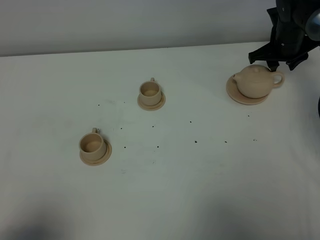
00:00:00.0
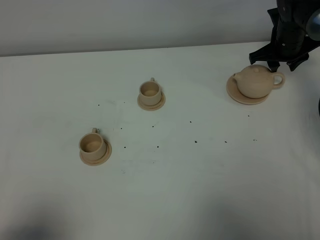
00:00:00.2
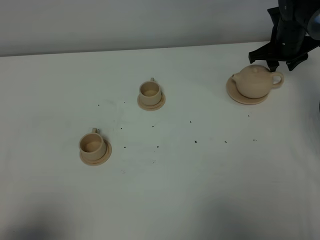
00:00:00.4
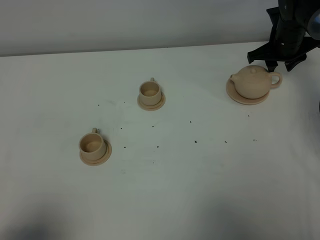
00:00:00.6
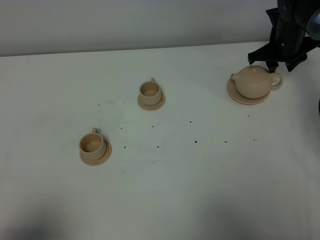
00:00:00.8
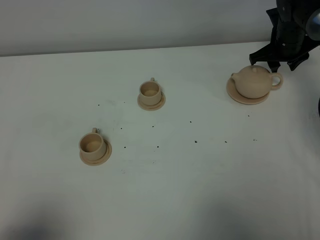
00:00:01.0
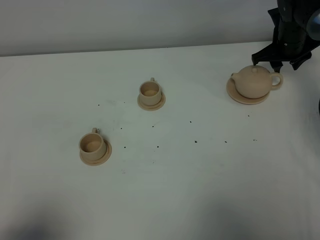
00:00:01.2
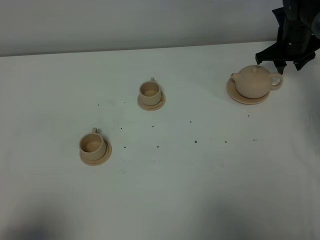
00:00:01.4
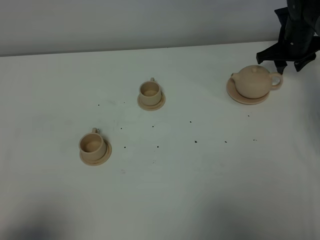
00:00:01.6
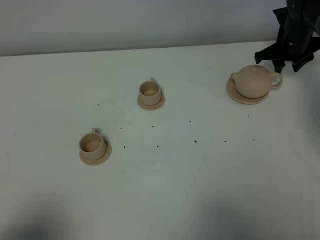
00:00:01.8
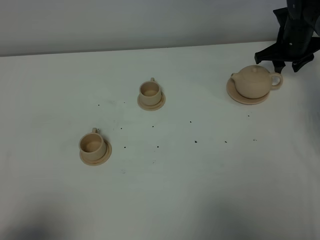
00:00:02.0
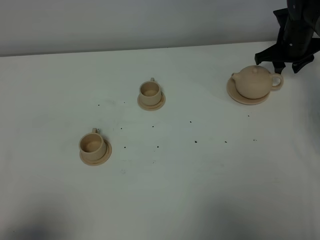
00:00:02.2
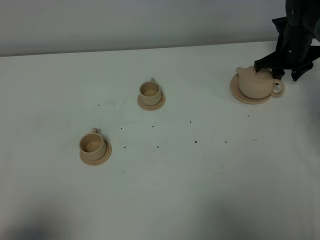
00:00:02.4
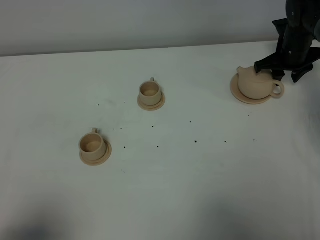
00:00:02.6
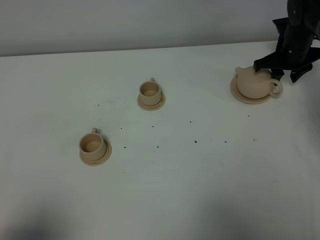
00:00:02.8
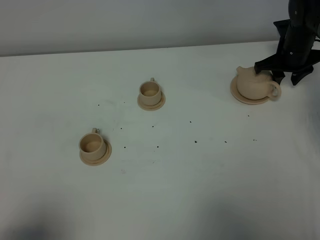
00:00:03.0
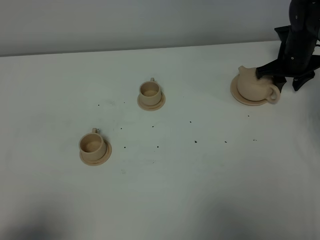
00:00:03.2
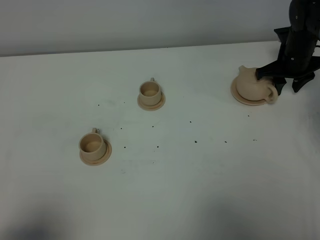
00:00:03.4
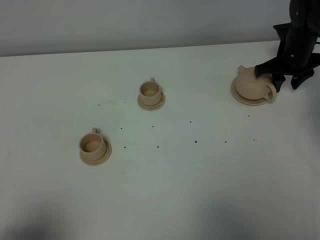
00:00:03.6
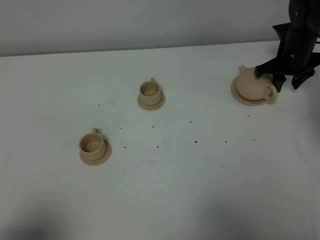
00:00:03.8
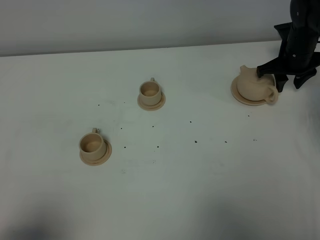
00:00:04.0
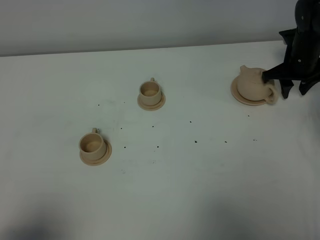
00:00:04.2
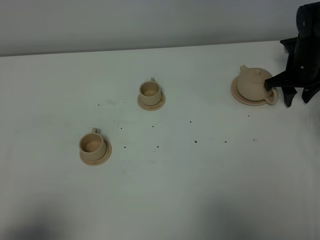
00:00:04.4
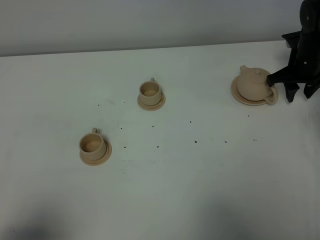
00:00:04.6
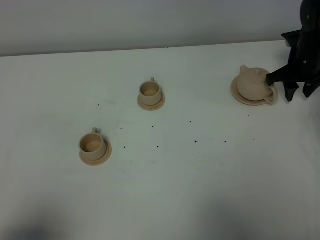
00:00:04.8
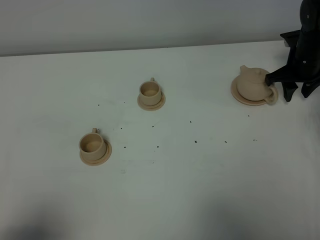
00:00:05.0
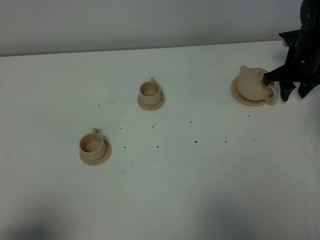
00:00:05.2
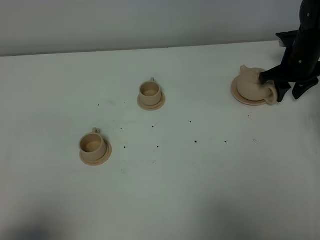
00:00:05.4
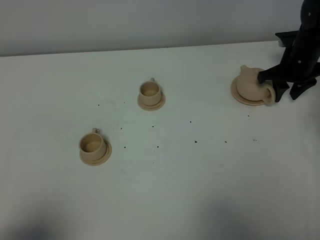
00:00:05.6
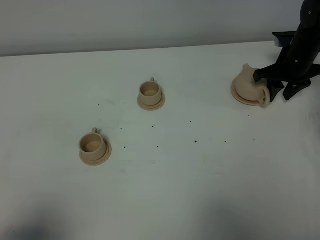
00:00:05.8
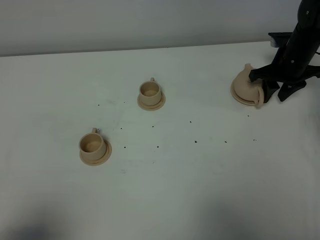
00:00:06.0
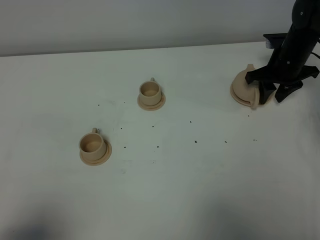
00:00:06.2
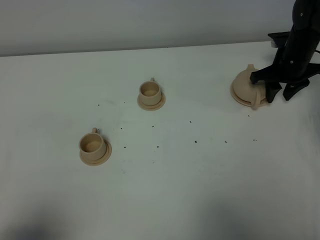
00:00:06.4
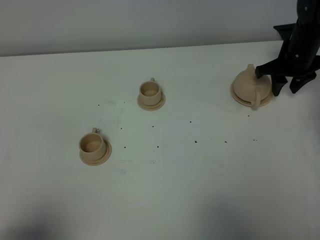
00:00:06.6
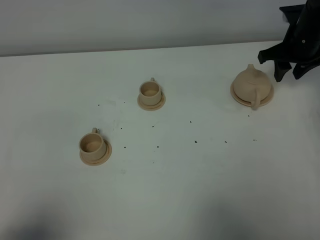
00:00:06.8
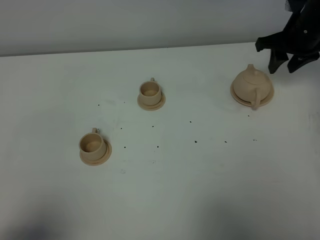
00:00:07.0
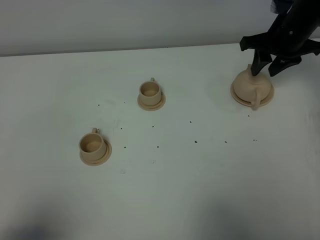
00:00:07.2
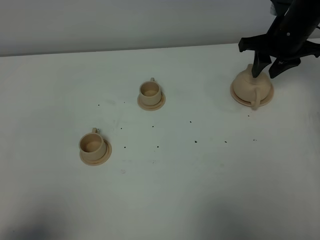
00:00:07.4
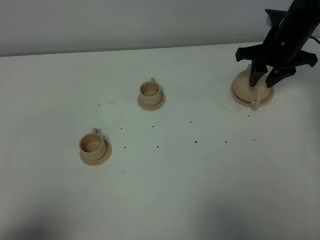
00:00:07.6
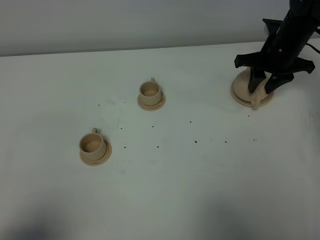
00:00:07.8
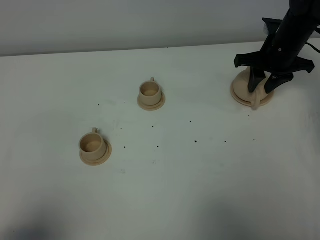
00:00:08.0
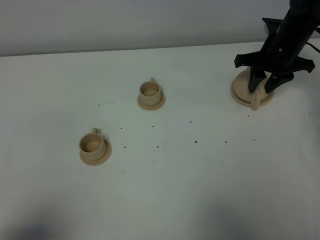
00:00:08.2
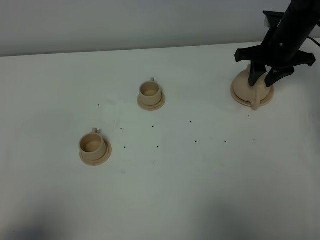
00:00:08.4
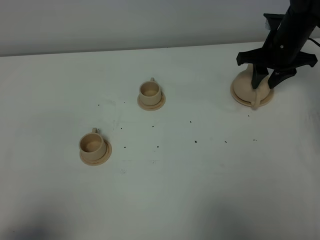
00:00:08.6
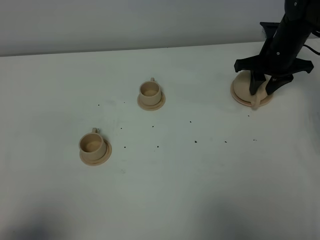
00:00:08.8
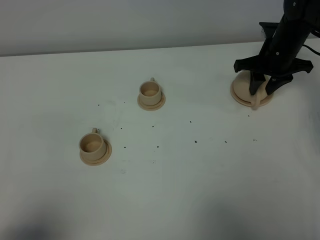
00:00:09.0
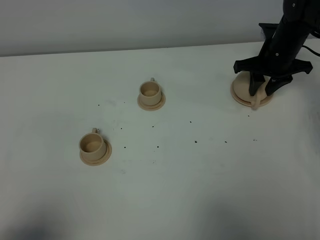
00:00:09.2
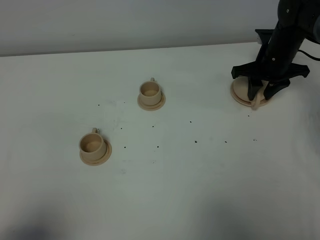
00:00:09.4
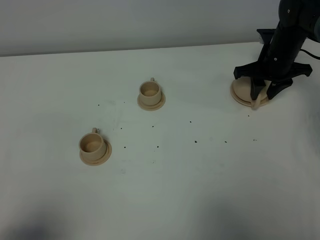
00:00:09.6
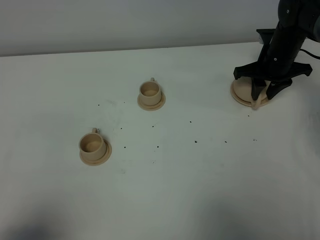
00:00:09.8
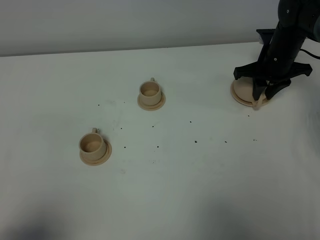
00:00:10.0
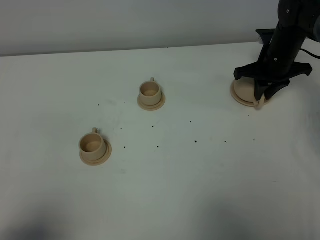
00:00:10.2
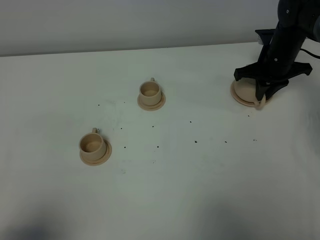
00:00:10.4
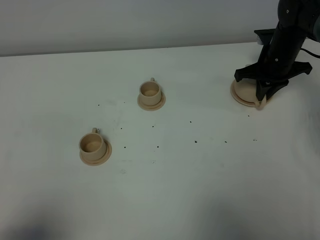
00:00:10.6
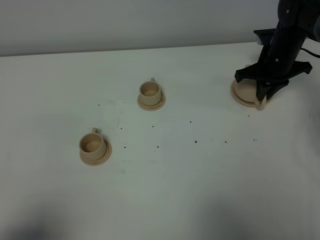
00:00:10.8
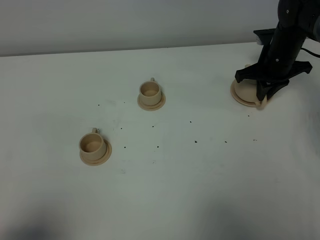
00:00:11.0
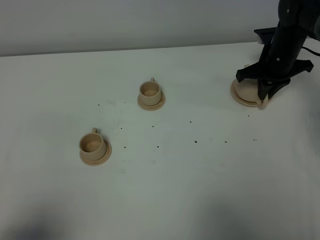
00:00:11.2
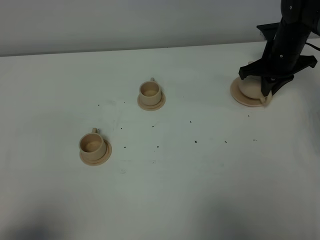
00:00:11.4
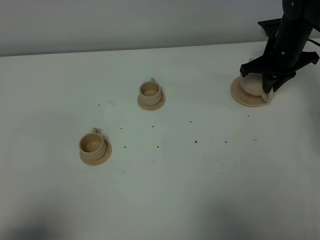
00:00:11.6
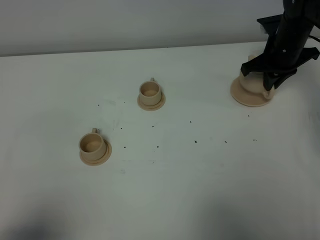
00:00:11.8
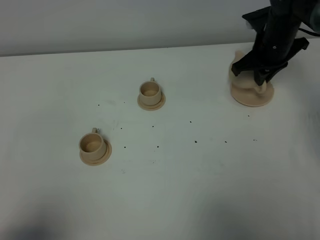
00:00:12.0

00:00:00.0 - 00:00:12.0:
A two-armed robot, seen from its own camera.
Task of the whole recording: grasp the brown teapot and pour the tea into the two brown teacups one by one, put the brown teapot back in its original place.
Step, 00:00:00.0 - 00:00:11.4: Pick up the teapot with the right gripper.
00:00:00.0 - 00:00:04.4: The grippers stay close to where they were, moving slightly.
00:00:04.4 - 00:00:06.0: The grippers make only small movements.
00:00:06.0 - 00:00:07.6: The right gripper shifts roughly 5 cm upward.
00:00:07.6 - 00:00:09.0: The grippers move only a little.
00:00:09.0 - 00:00:10.4: The right gripper closes its fingers.
00:00:10.4 - 00:00:12.0: The right gripper travels upward by about 5 cm.

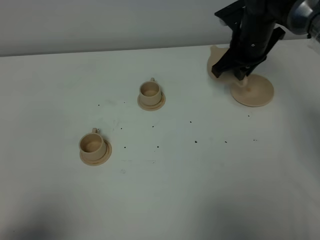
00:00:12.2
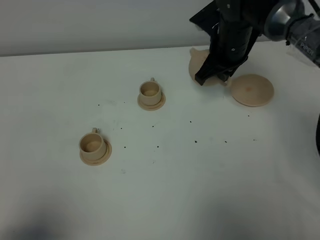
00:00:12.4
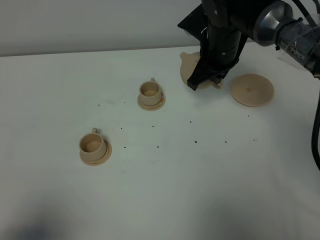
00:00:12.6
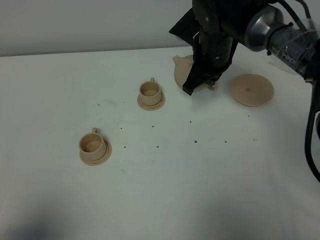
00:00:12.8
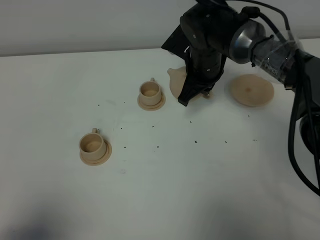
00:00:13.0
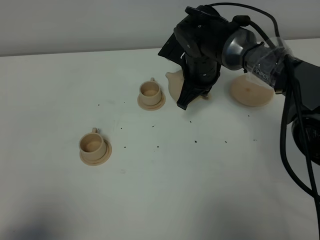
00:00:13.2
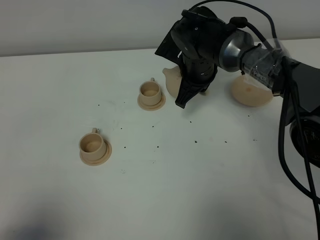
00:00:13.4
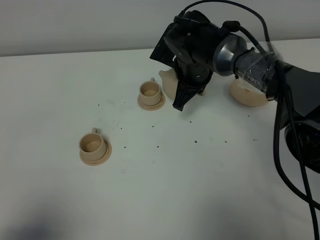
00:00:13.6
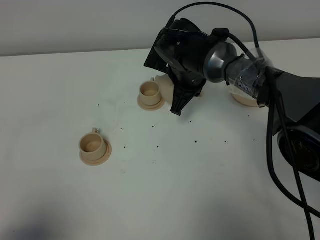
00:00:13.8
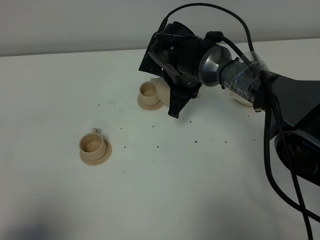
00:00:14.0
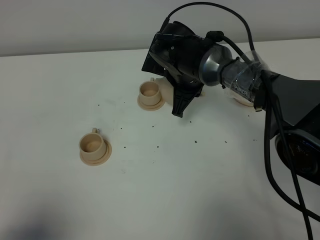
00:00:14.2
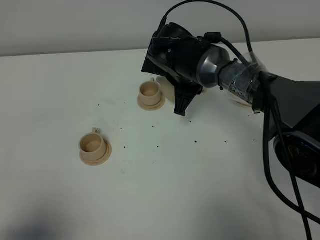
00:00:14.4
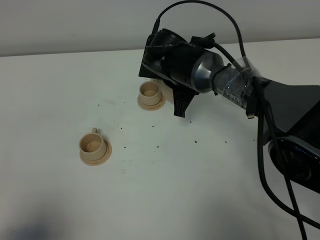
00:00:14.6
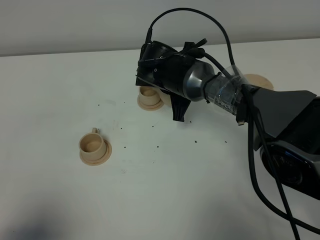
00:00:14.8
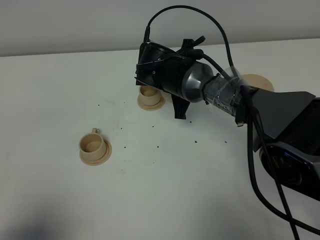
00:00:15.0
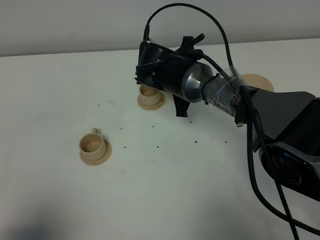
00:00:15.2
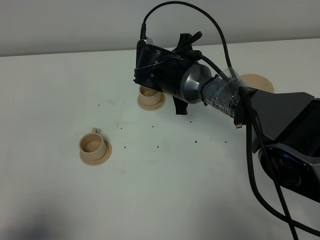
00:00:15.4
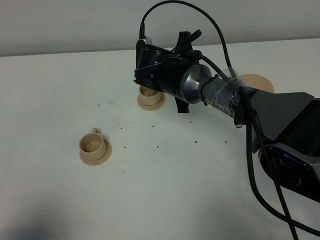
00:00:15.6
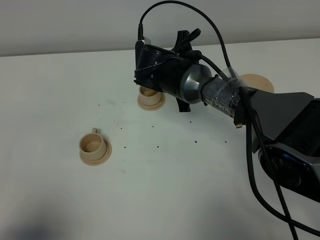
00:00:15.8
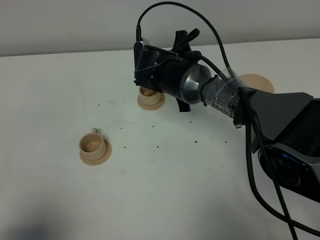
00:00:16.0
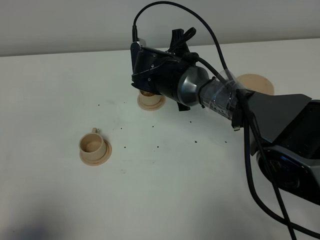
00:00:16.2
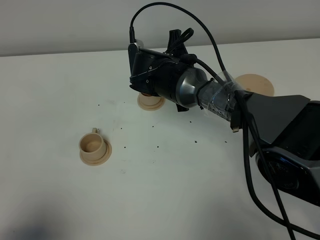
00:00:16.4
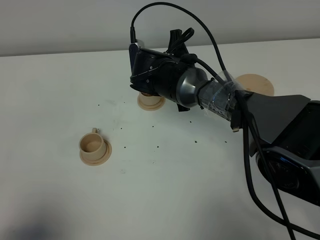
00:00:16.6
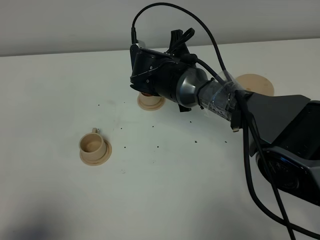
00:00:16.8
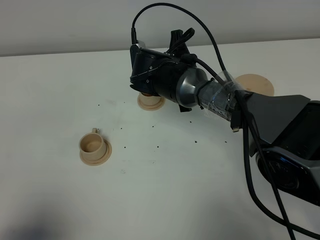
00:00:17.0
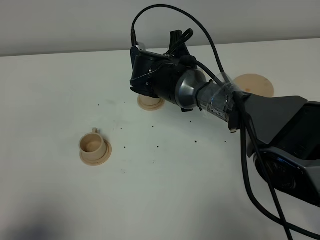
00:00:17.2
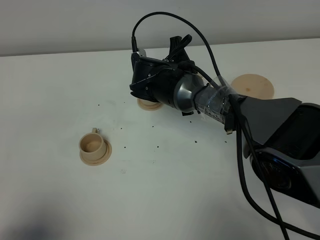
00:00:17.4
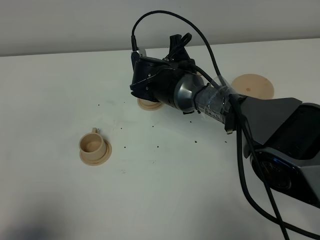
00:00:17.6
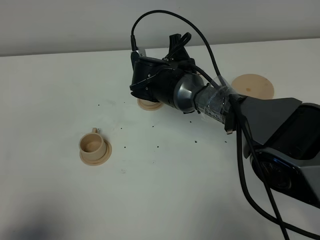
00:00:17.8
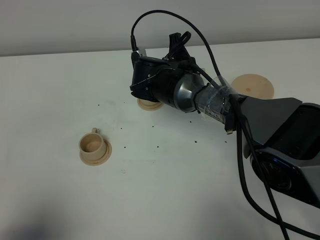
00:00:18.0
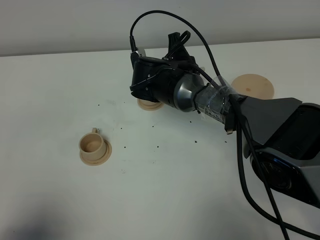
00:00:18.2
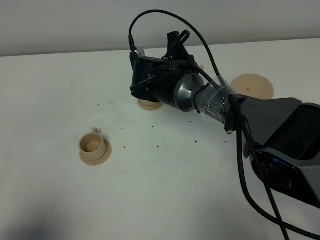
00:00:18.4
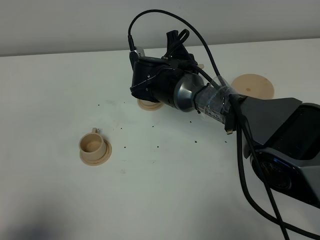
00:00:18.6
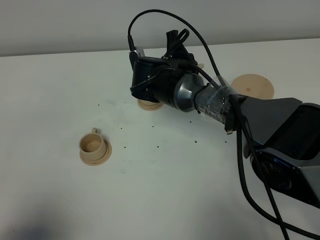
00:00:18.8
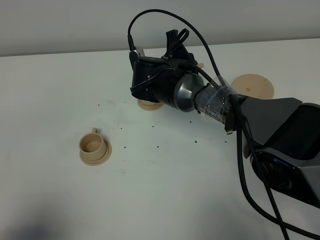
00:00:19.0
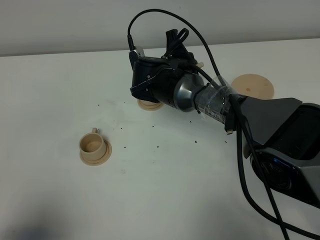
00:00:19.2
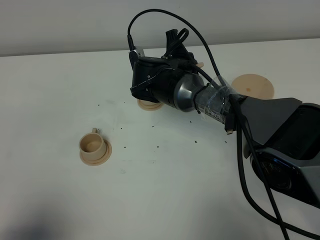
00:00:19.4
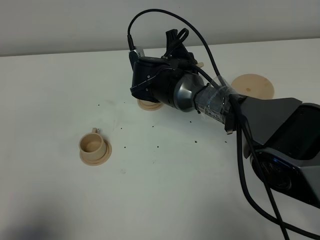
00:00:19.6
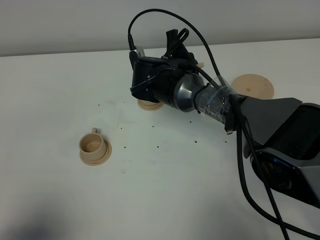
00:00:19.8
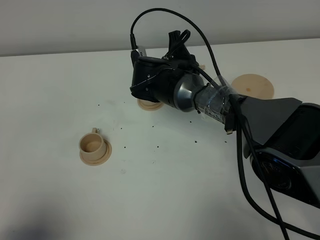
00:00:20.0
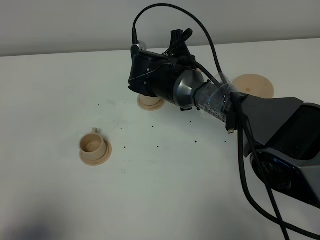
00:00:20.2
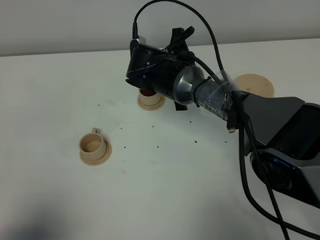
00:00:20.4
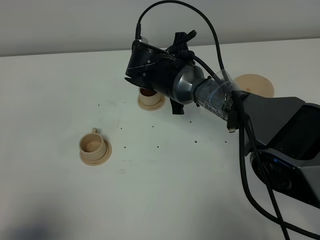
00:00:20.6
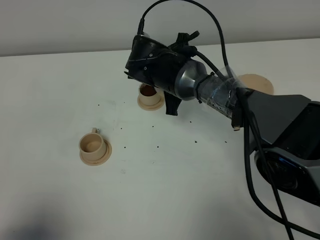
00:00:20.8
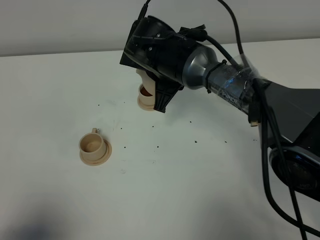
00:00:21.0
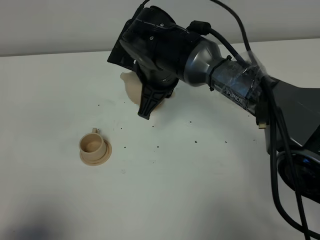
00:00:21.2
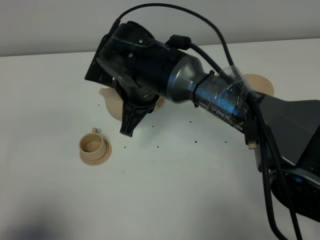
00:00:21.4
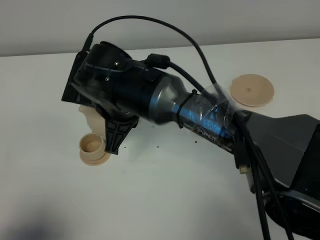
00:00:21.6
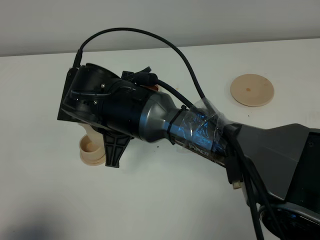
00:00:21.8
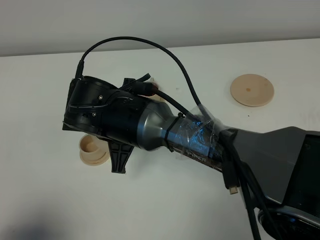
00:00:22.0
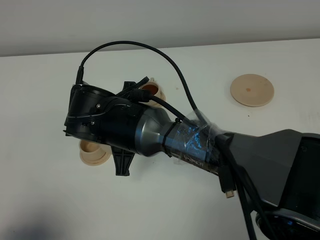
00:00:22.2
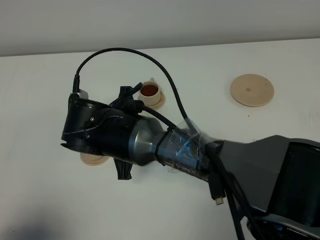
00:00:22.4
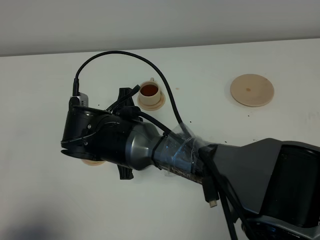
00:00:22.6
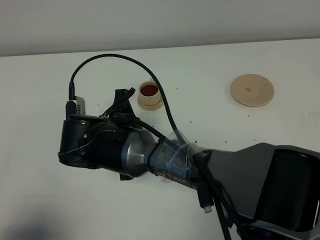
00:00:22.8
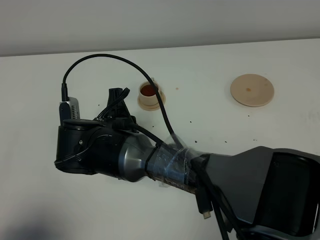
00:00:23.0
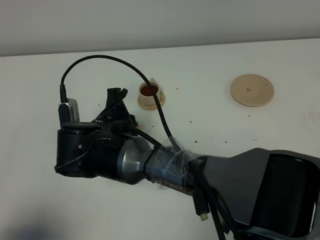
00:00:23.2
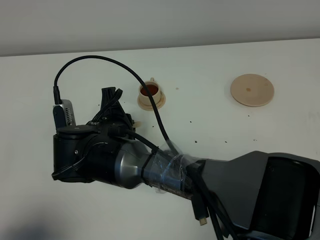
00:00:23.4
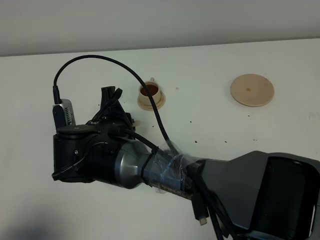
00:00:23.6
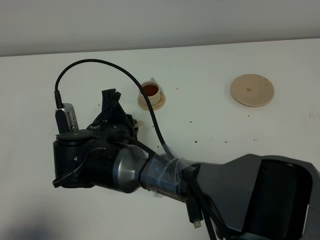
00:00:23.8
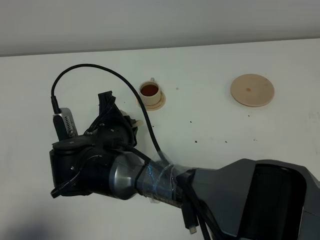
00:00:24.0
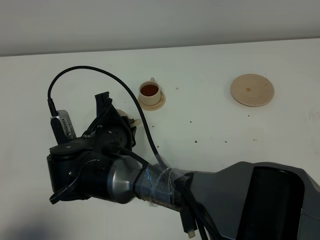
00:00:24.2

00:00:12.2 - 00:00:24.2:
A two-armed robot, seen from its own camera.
Task of the whole recording: grasp the brown teapot and pour the tea into the two brown teacups one by one, put the brown teapot back in its original place.
Step, 00:00:12.2 - 00:00:20.6: Pour tea into the teacup with the right gripper.
00:00:12.2 - 00:00:13.8: The right gripper heads to the left and downward, covering roughly 10 cm.
00:00:15.2 - 00:00:18.2: The grippers stay close to where they were, moving slightly.
00:00:18.2 - 00:00:19.8: Both grippers stay about where they are.
00:00:19.8 - 00:00:21.2: The right gripper shifts roughly 10 cm upward and backward.
00:00:21.2 - 00:00:22.6: The right gripper travels backward, to the left and downward by some 15 cm.
